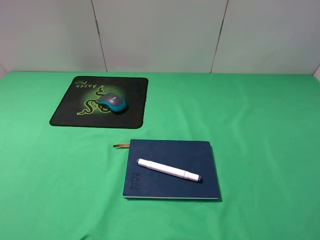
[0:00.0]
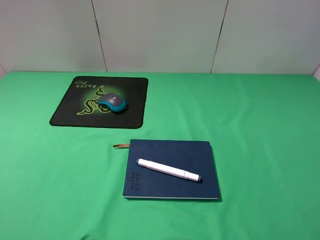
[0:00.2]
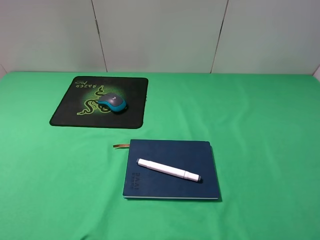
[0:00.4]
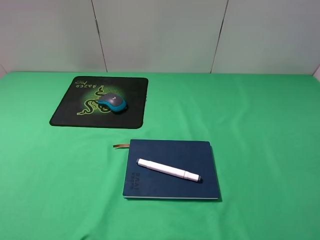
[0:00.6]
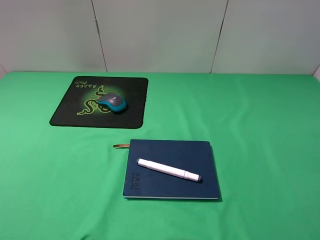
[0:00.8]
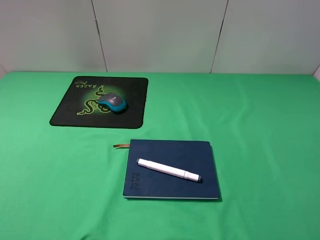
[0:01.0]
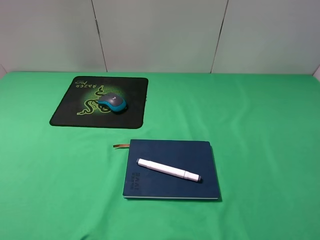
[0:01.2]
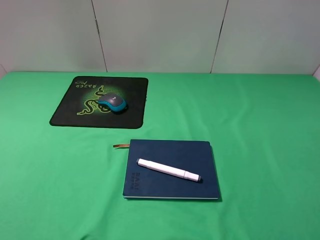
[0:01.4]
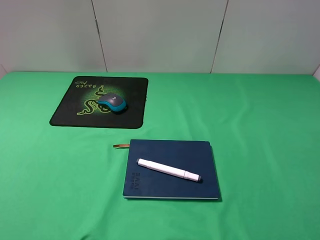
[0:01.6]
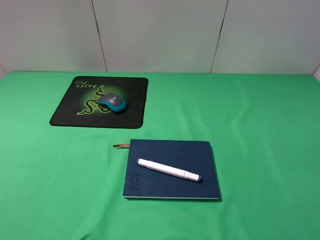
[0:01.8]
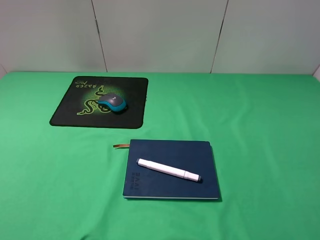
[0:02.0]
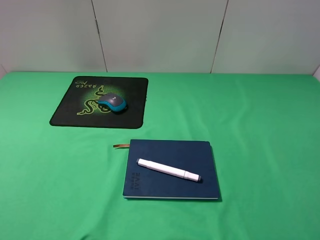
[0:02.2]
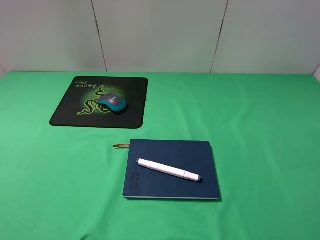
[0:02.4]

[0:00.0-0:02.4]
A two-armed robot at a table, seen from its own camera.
0:01.2 to 0:02.4: Both grippers stay put.
